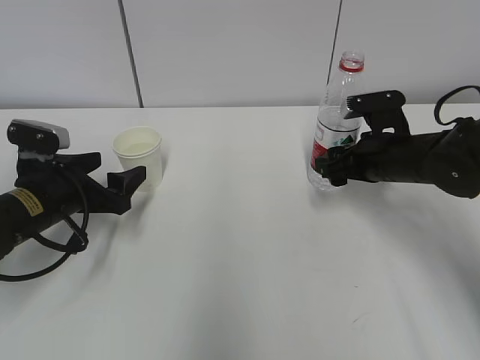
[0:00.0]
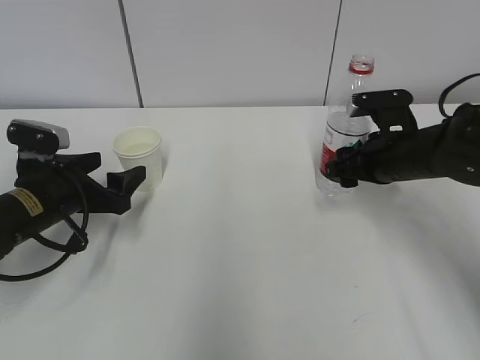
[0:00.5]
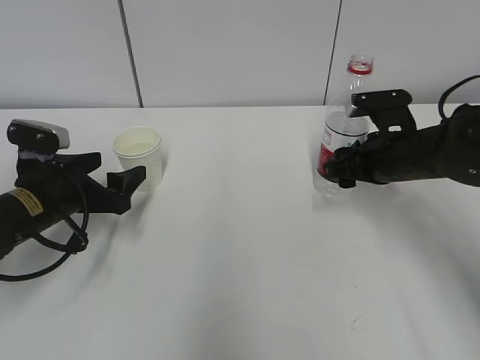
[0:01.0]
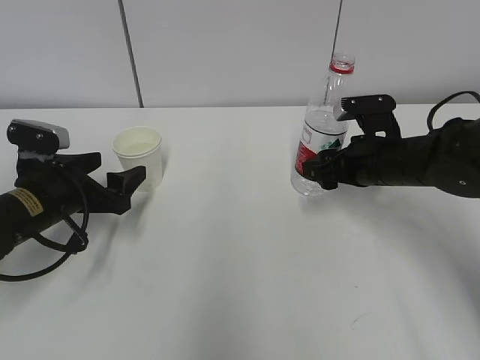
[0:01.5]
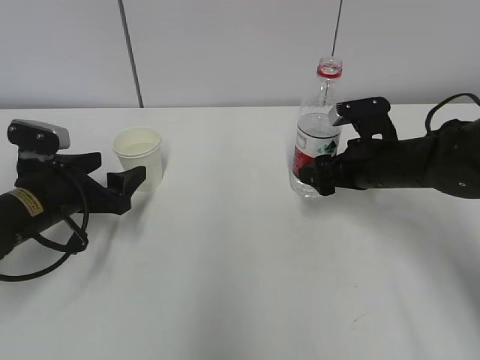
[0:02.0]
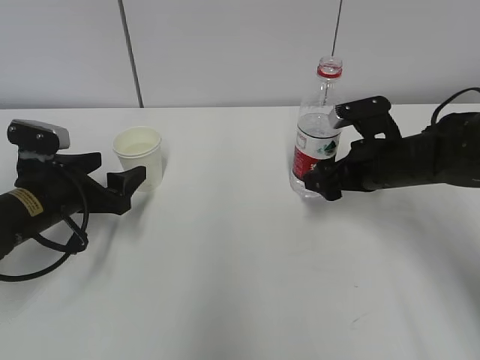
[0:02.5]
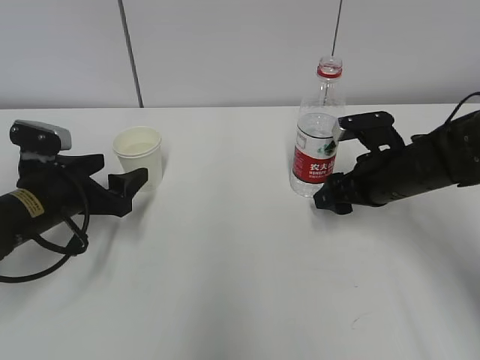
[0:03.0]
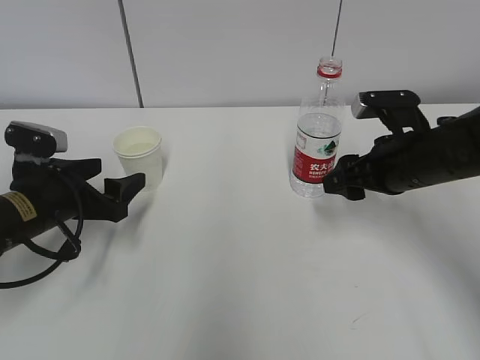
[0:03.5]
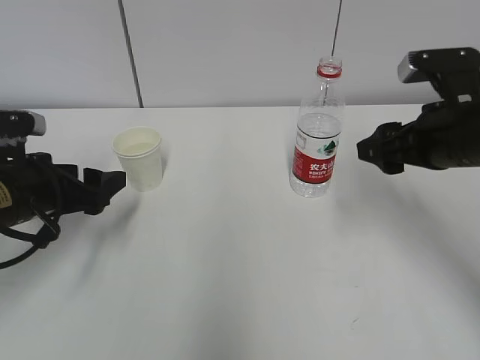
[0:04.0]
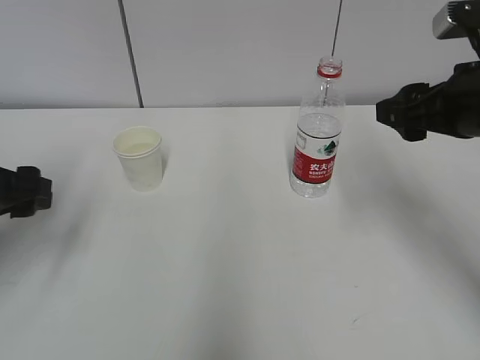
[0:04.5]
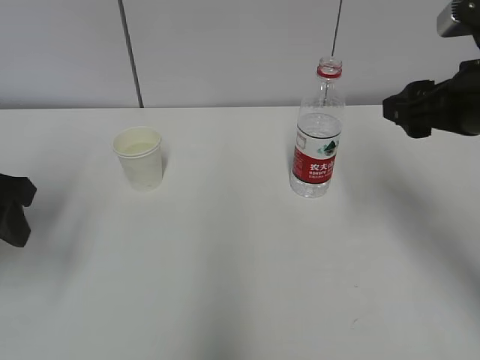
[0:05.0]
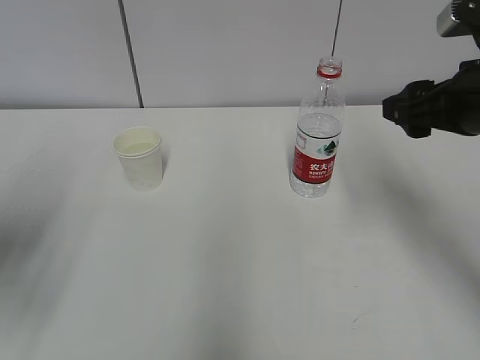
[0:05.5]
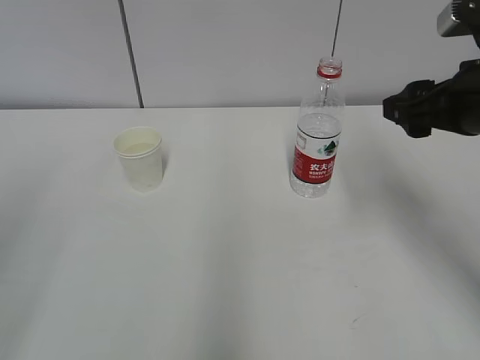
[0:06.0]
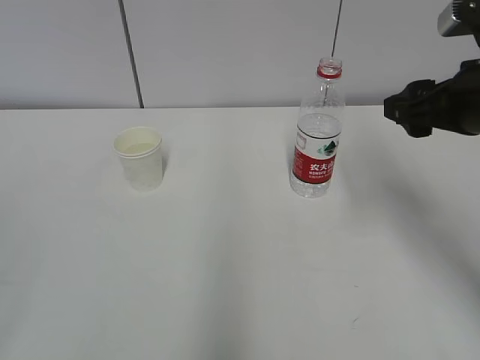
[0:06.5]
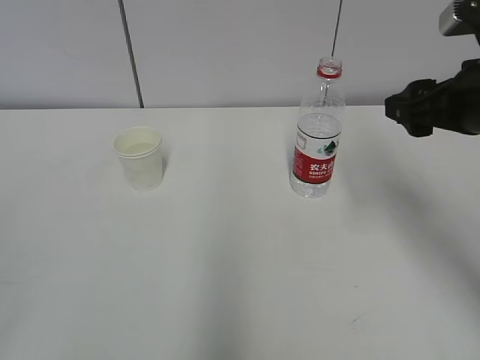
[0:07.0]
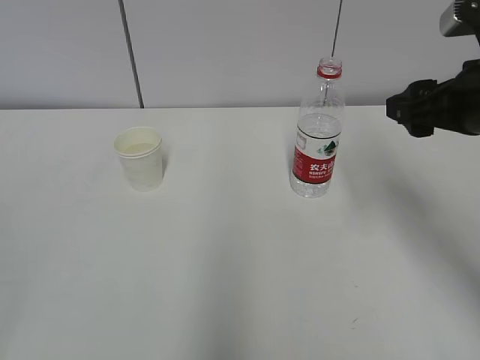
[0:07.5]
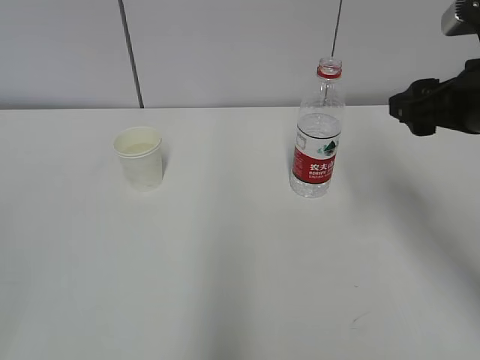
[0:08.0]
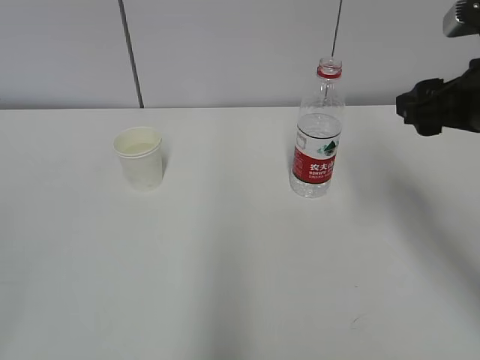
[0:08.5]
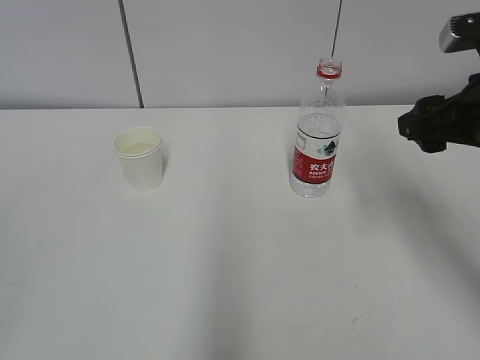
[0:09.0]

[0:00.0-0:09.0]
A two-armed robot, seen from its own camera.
0:00.0 to 0:02.0: There are only small adjustments of the grippers.
0:02.0 to 0:04.5: The right gripper shifts about 15 cm upward and backward, while the left gripper heads upward and backward, covering about 10 cm.
0:04.5 to 0:07.0: The left gripper heads backward, covering some 25 cm, and closes its fingers.
0:07.0 to 0:09.0: The grippers make only small movements.

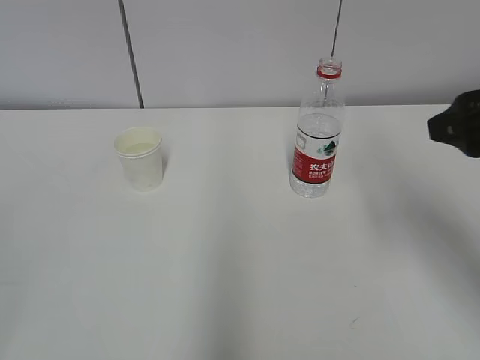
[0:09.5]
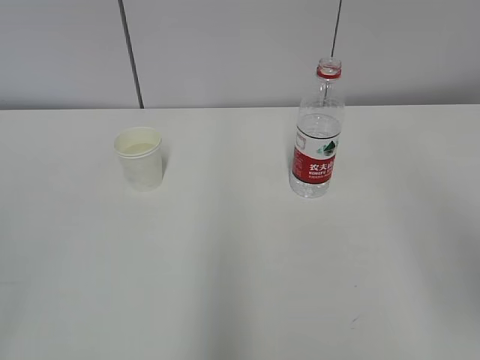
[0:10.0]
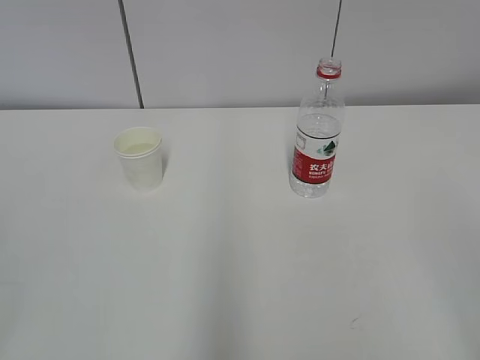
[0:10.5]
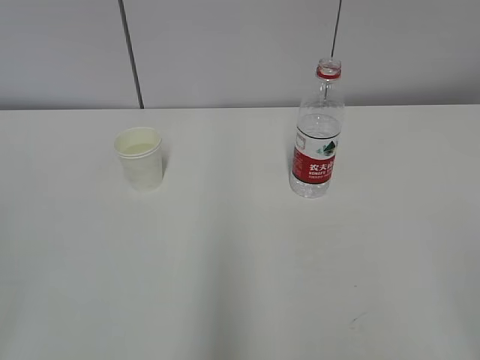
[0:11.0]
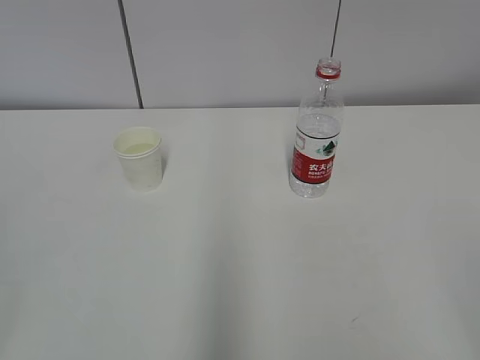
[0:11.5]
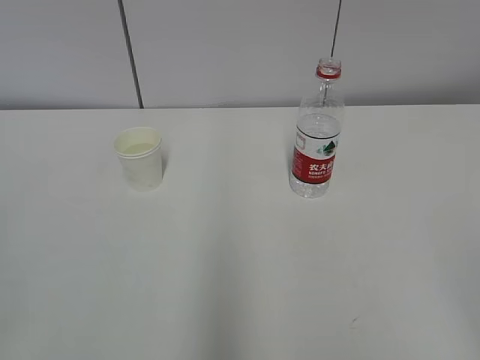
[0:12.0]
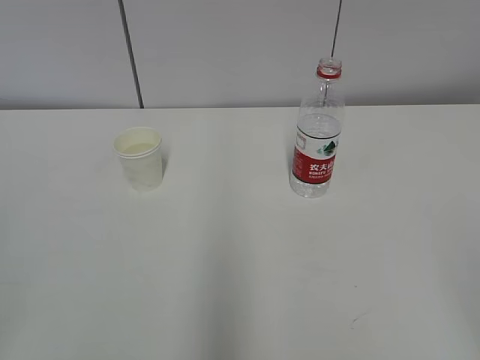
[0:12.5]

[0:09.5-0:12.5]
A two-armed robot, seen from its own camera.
0:09.5 to 0:11.0: The right gripper travels backward by approximately 25 cm.
0:11.0 to 0:12.5: Neither gripper changes place.

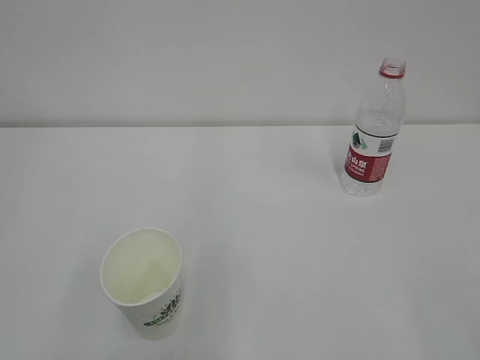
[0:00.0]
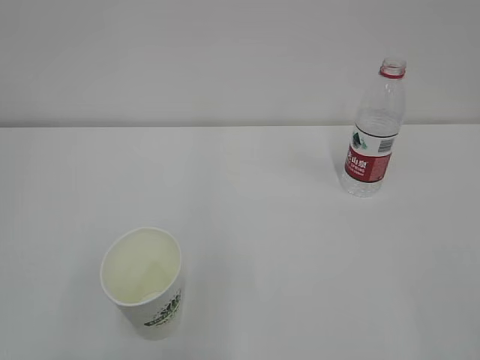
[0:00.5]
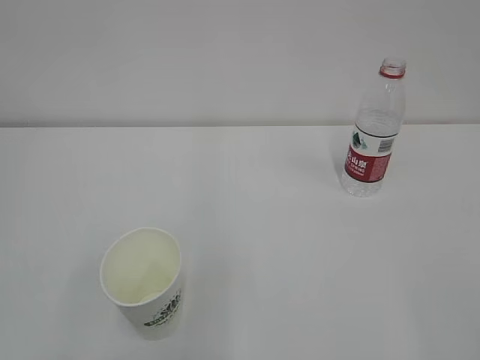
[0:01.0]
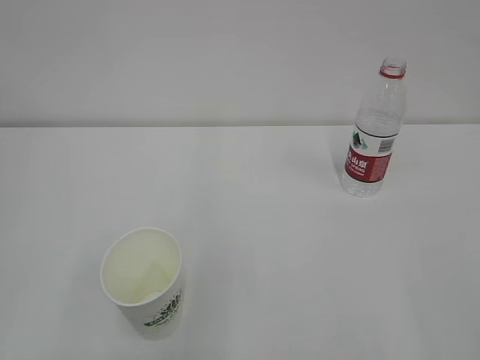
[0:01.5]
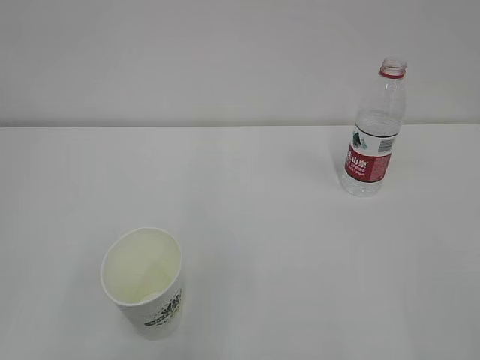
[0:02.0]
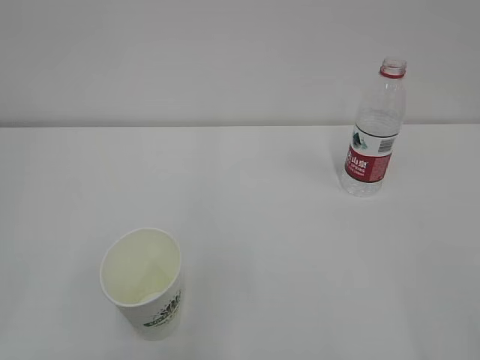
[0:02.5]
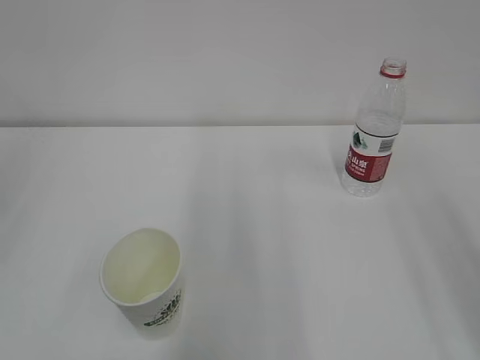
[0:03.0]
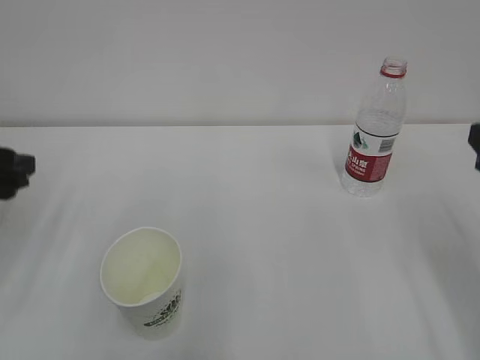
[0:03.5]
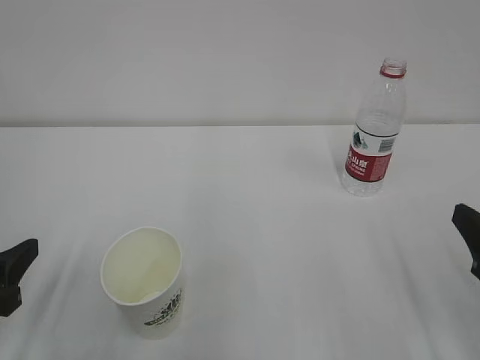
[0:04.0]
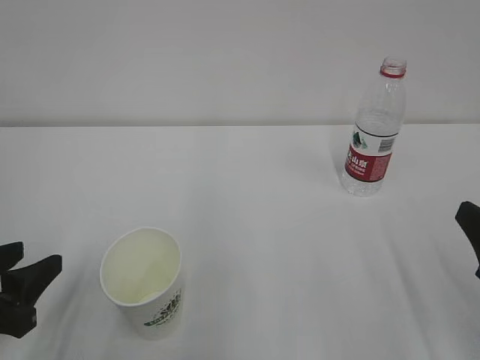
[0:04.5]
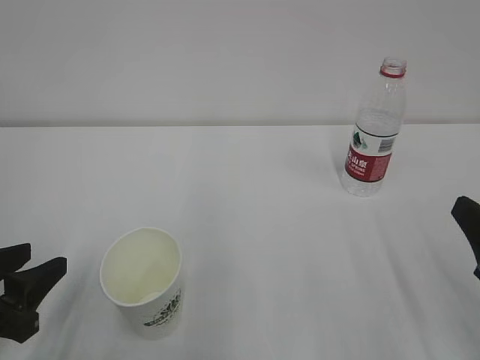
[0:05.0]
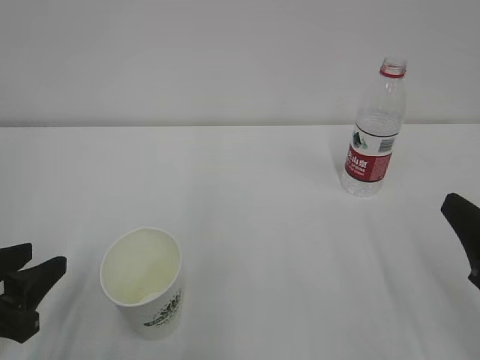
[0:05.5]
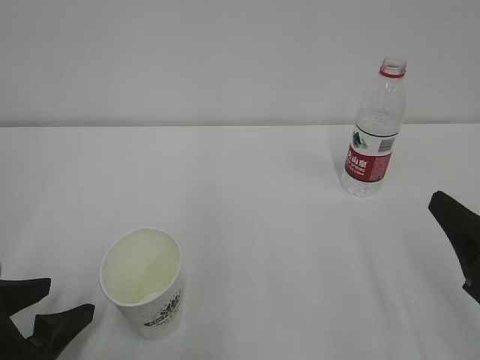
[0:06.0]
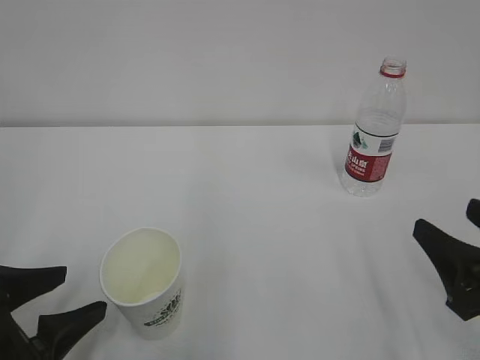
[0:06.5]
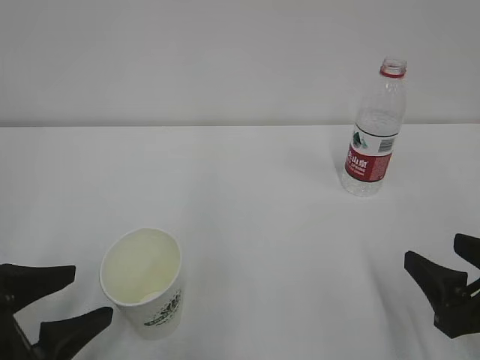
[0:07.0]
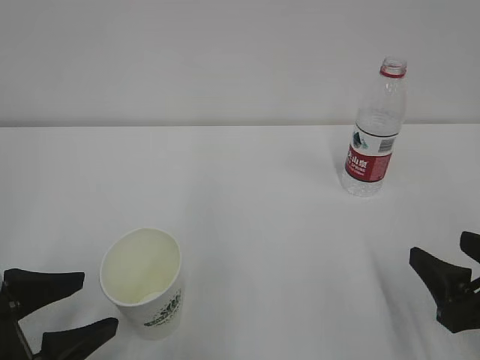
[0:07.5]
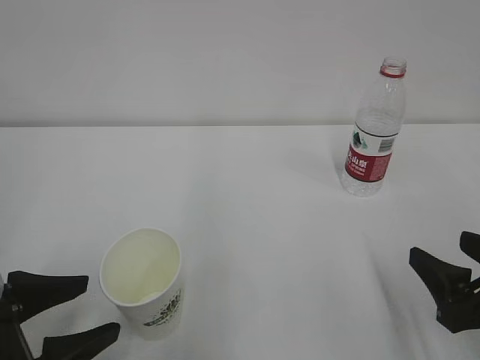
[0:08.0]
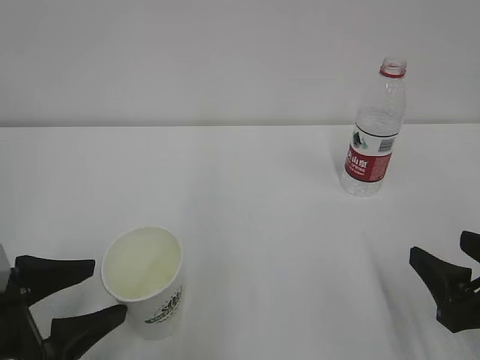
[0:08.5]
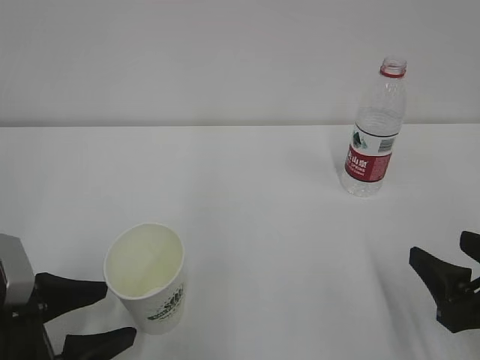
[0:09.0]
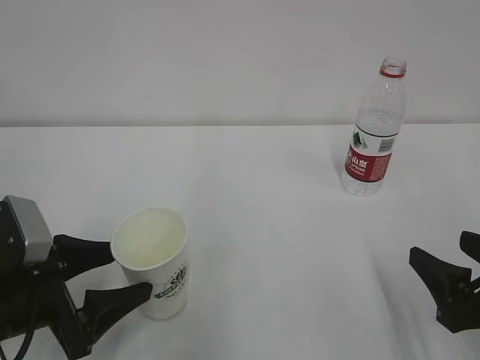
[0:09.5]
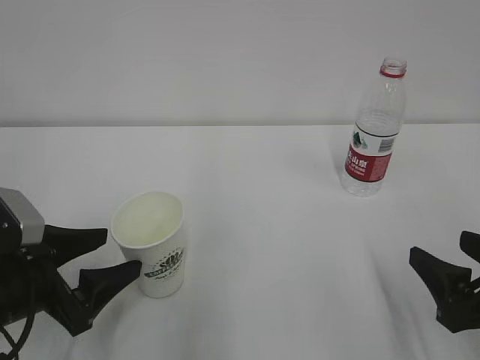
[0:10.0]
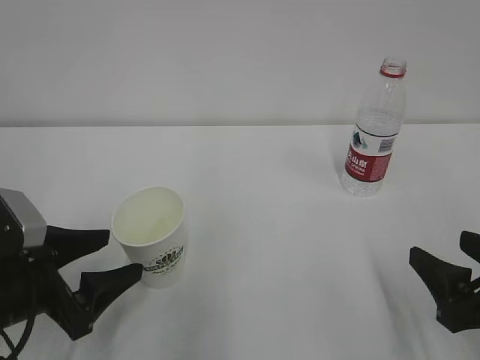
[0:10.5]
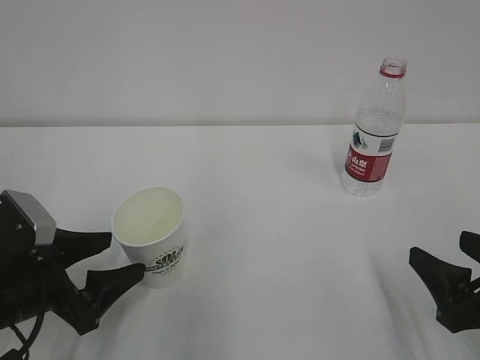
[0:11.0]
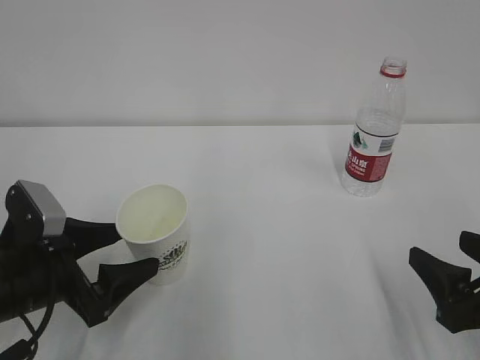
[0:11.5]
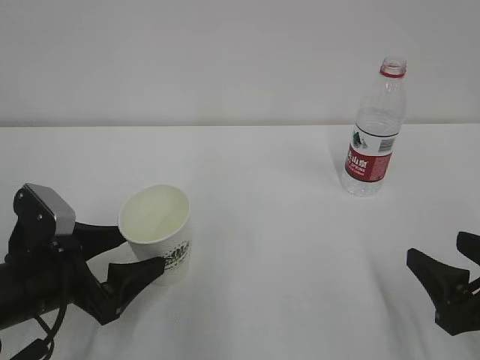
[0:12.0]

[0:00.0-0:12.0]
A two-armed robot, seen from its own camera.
0:02.0 to 0:04.0: Both grippers travel together forward and downward, some 20 cm.
0:04.0 to 0:06.0: The right gripper closes and opens again; the left gripper opens.
0:06.0 to 0:08.0: The right gripper moves downward, some 5 cm.
0:08.0 to 0:10.0: The left gripper moves forward, approximately 5 cm.
0:10.0 to 0:12.0: The grippers stay close to where they were, moving slightly.

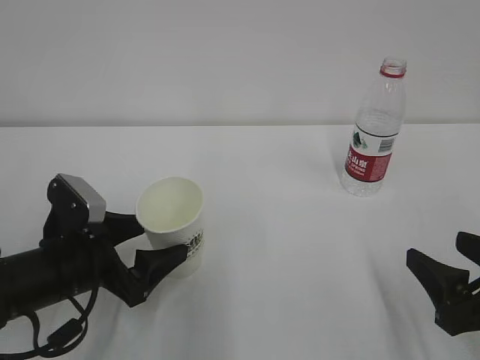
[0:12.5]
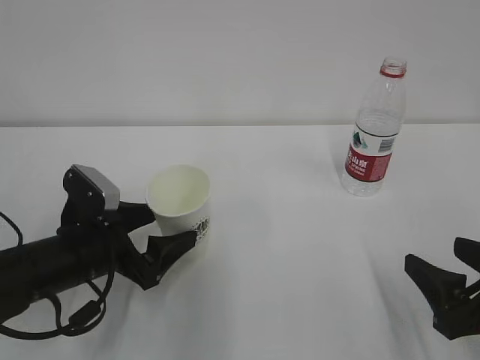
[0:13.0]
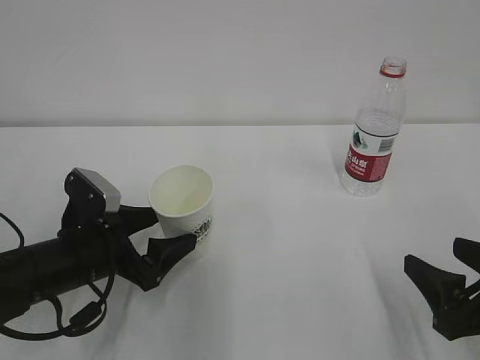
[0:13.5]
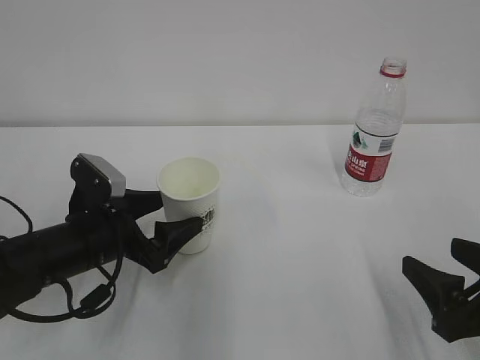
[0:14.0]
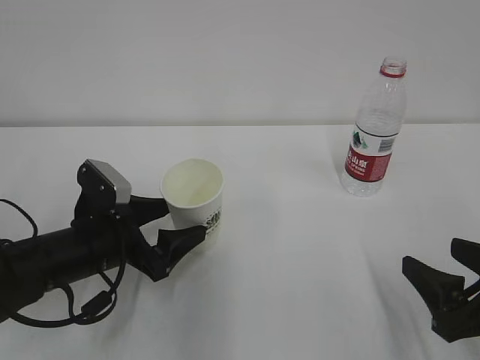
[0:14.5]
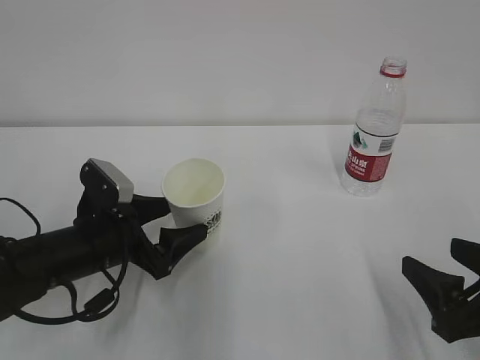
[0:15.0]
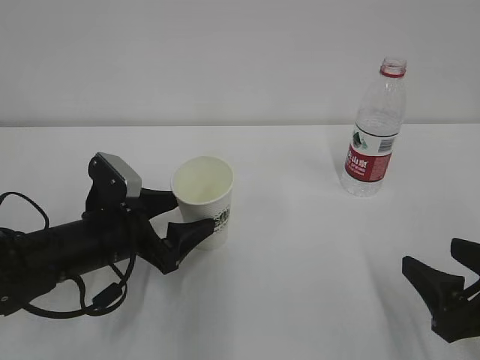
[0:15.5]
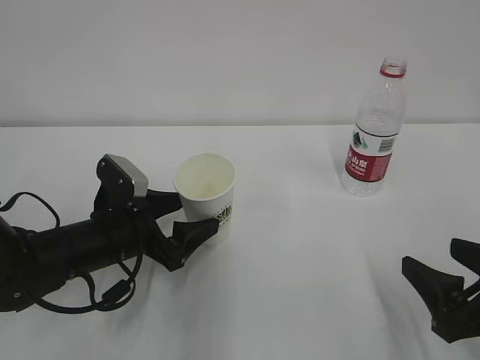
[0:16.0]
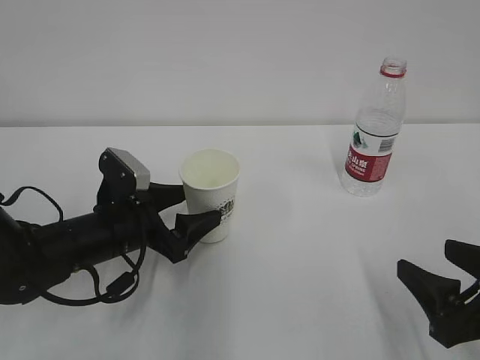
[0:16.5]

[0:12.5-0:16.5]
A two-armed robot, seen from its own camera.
0:12.5 to 0:14.5: The grippers move only a little.
0:14.5 to 0:16.5: The grippers make only small movements.
